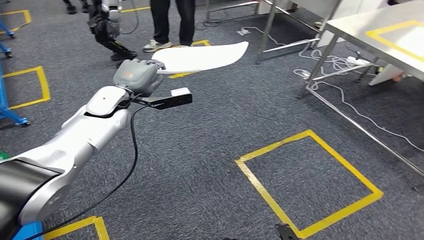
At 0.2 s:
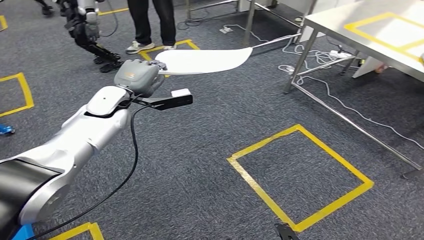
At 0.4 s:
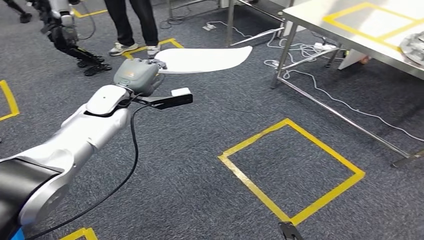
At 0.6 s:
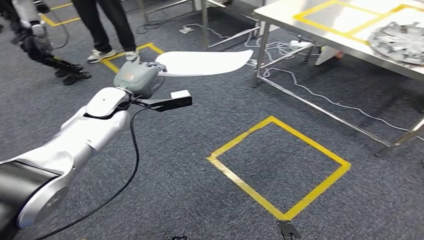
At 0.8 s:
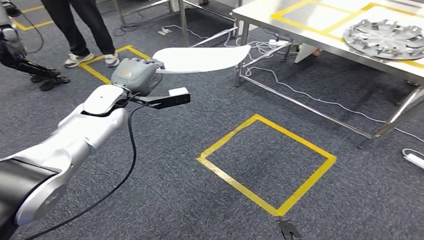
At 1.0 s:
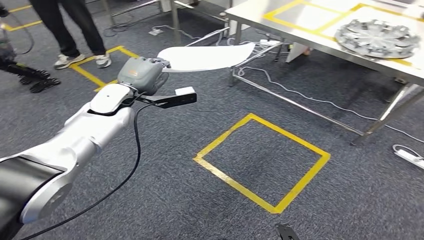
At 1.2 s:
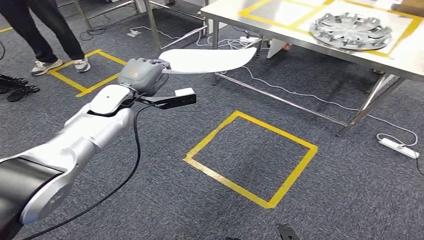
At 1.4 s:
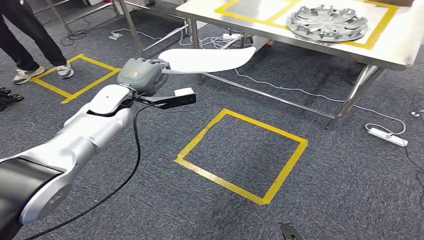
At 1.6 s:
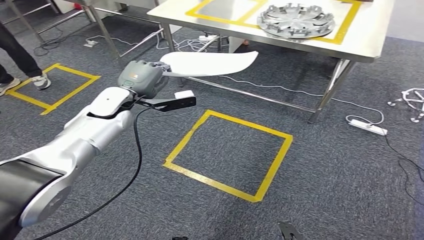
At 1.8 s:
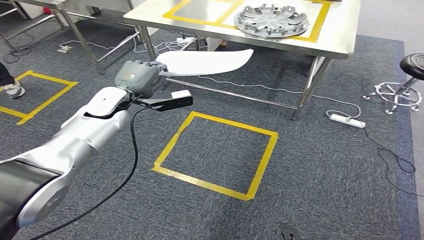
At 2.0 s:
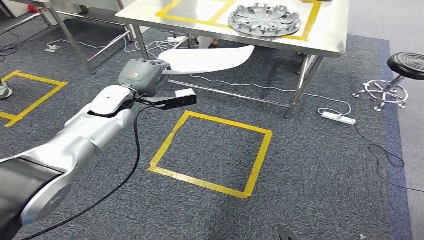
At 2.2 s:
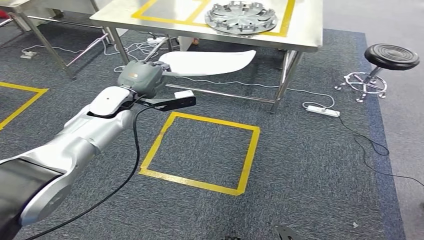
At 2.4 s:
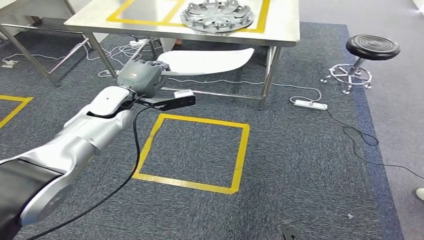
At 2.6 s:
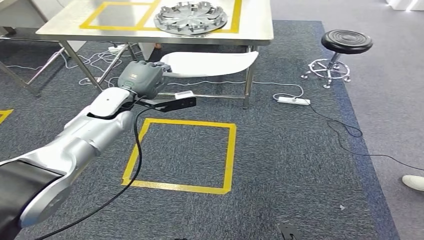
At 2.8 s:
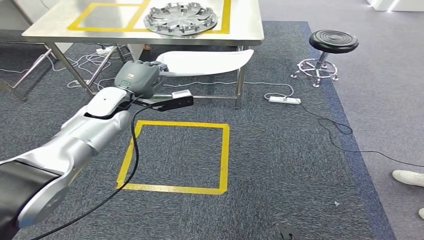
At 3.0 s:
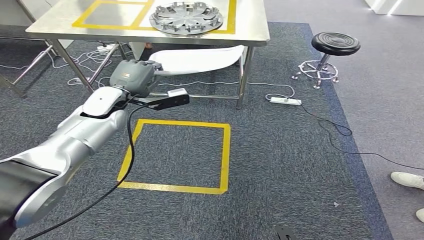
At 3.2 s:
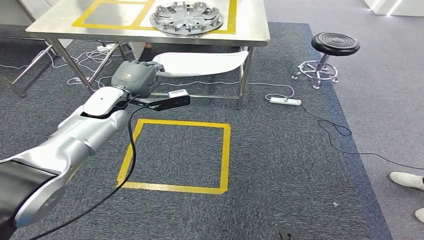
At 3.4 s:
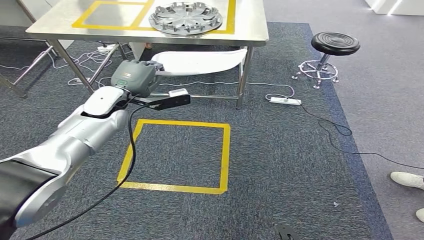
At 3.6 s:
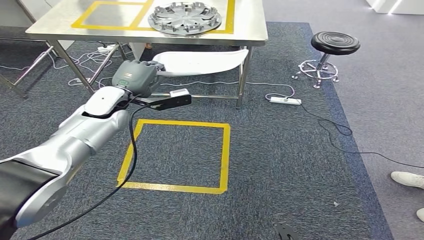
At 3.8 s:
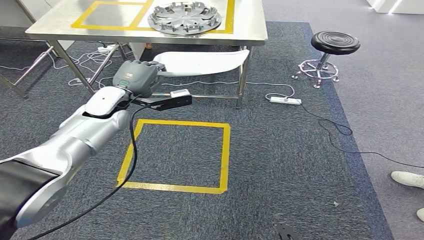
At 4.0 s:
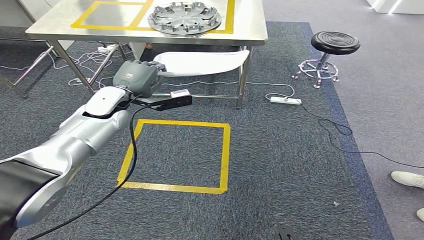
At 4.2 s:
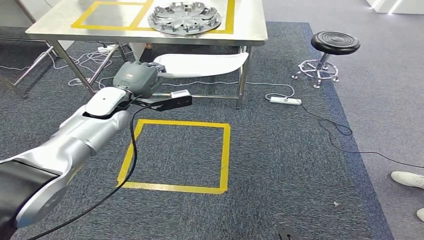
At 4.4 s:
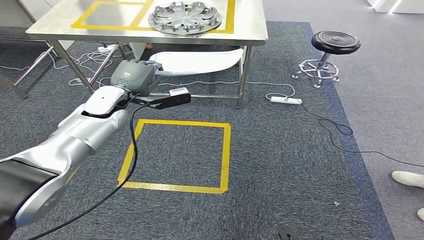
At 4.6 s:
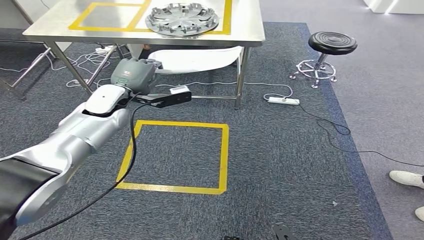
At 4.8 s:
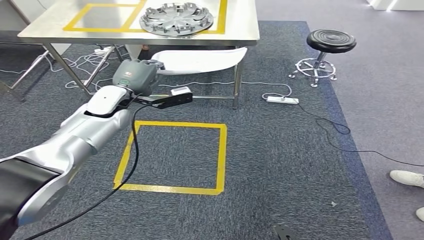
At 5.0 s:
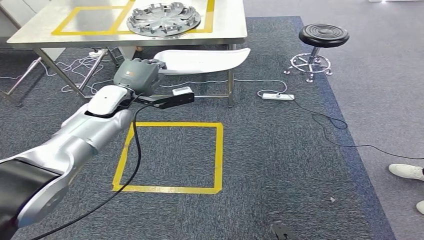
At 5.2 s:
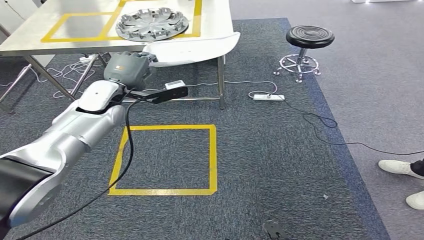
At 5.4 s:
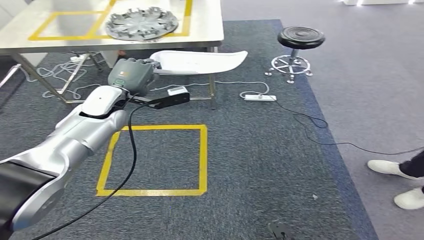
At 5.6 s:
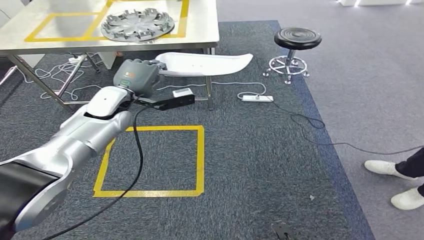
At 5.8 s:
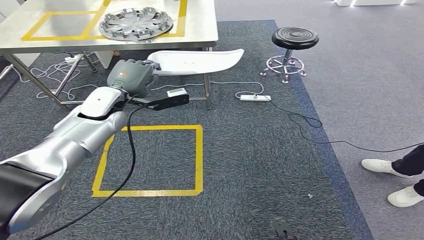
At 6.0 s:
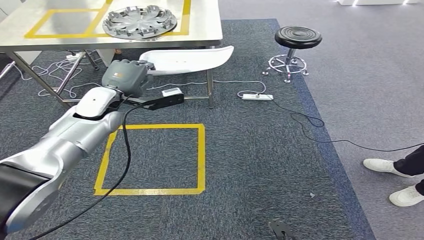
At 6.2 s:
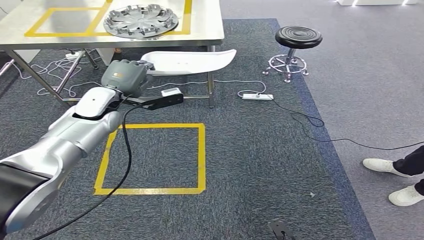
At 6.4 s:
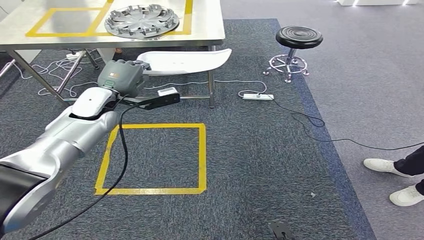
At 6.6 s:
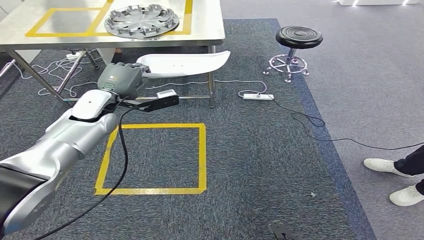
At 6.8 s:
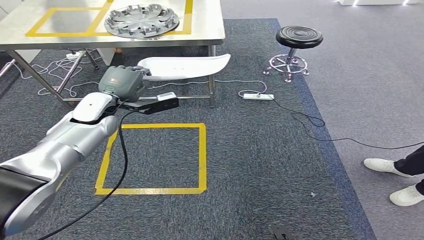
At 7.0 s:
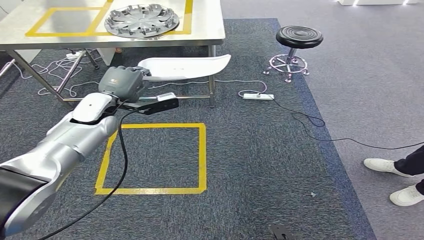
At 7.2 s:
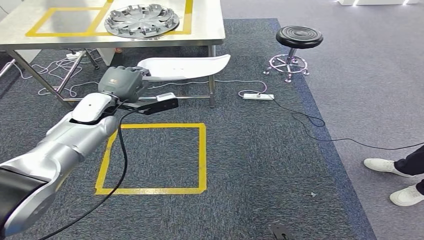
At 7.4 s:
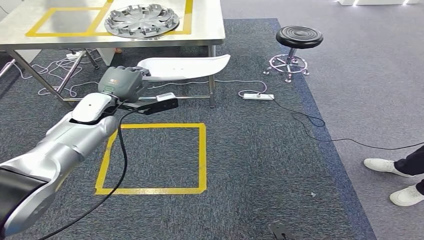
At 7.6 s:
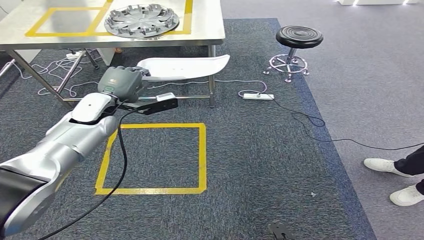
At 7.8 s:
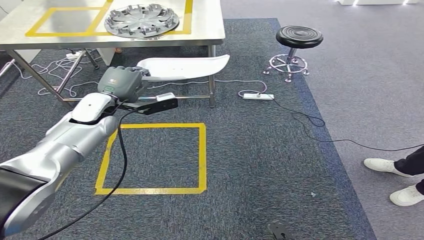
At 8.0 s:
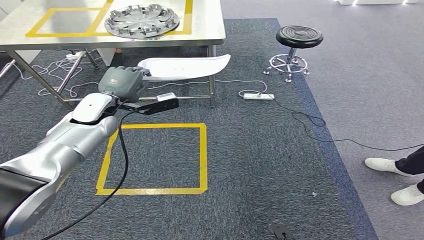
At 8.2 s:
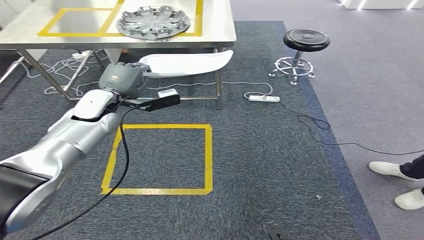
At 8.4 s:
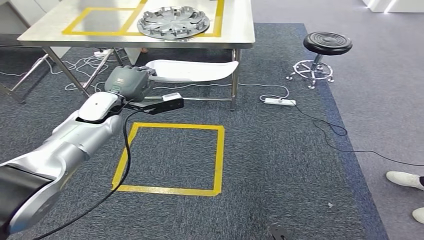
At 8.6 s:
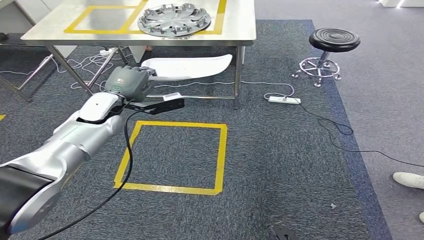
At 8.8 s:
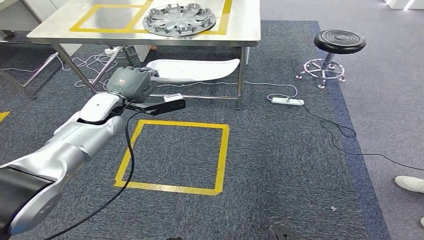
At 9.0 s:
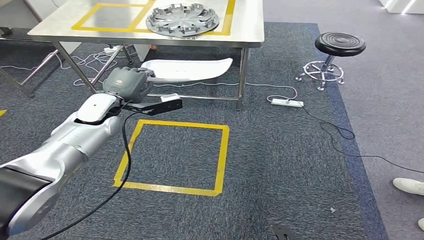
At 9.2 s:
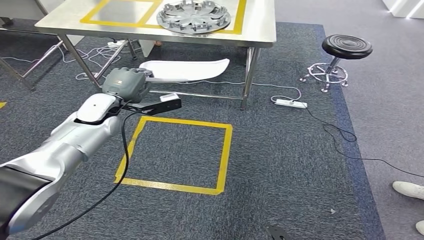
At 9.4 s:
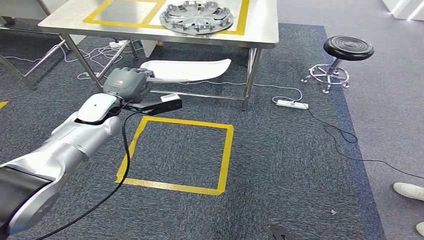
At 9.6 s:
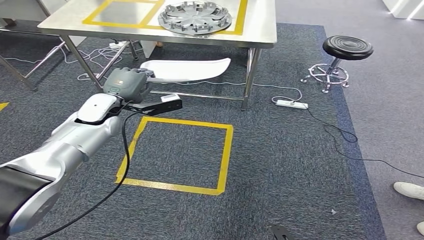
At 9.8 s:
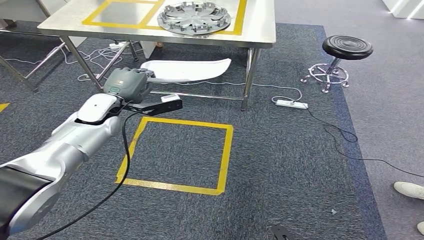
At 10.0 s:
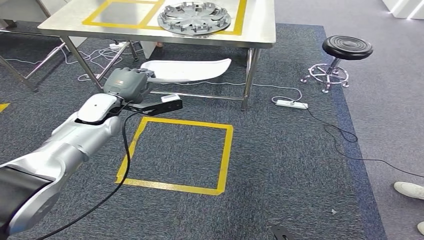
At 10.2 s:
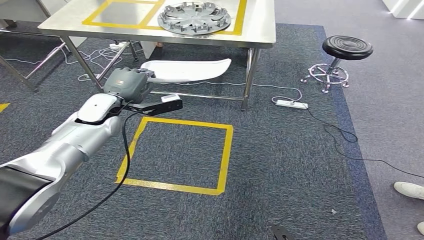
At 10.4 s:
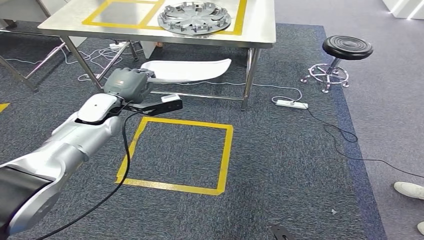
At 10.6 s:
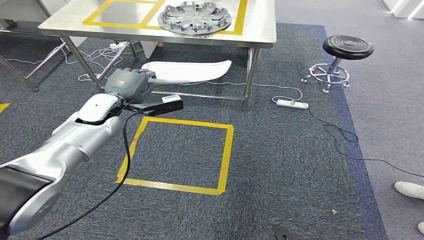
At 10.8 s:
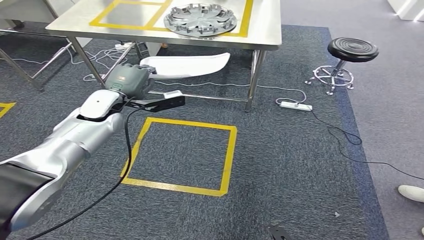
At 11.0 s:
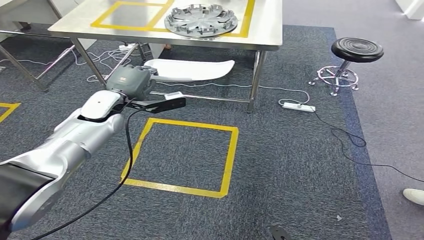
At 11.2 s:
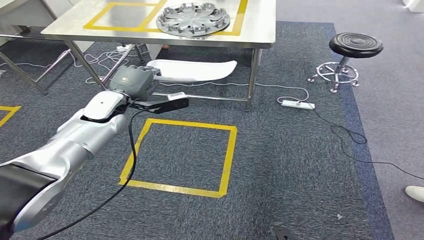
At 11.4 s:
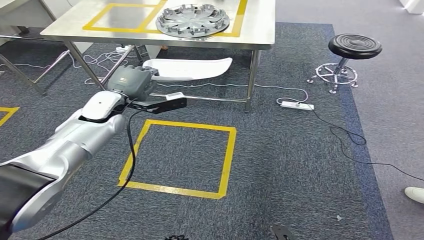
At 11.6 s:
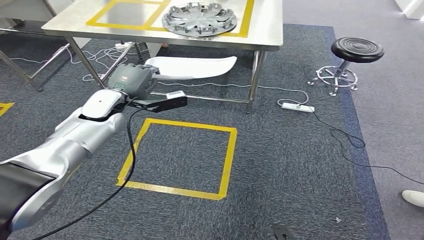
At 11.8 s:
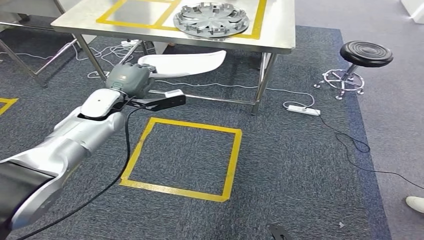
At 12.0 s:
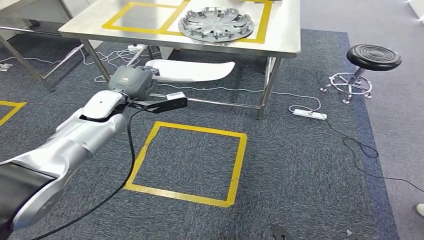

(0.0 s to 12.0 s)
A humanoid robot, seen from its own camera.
3.0 s - 4.4 s: The two hands keep their place.
6.0 s - 7.6 s: The hands make only small movements.
9.0 s - 10.4 s: Neither hand changes place.

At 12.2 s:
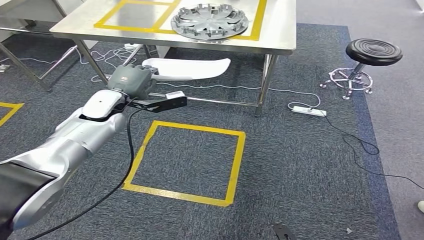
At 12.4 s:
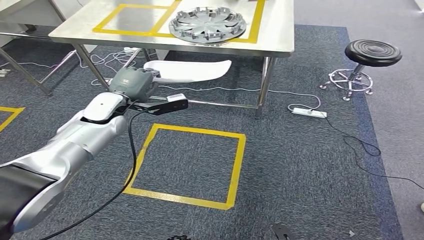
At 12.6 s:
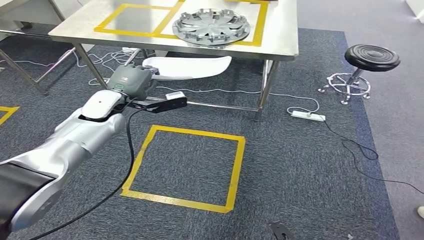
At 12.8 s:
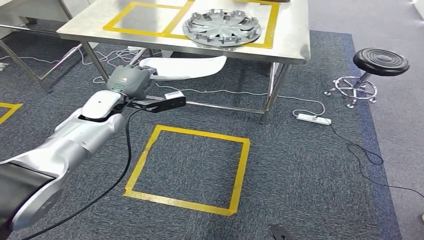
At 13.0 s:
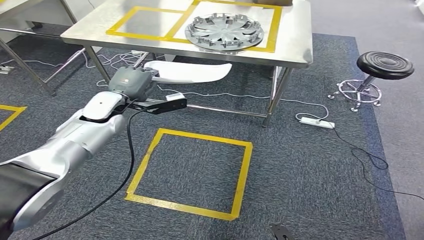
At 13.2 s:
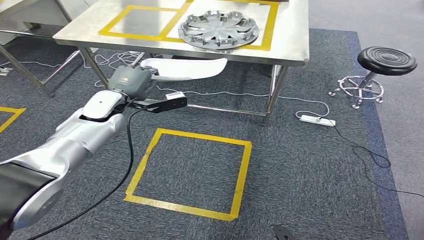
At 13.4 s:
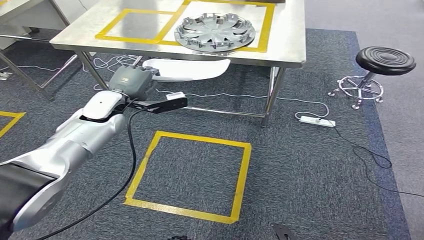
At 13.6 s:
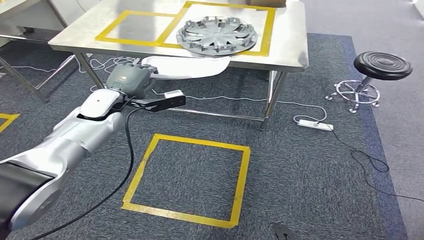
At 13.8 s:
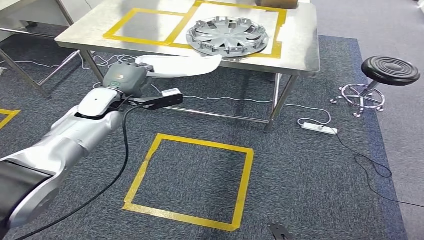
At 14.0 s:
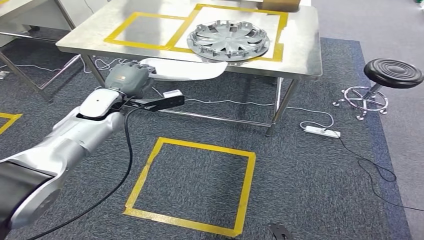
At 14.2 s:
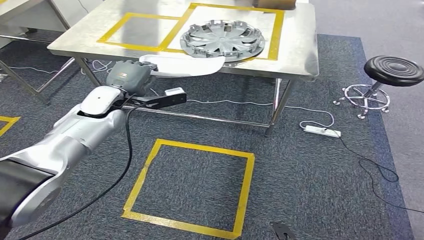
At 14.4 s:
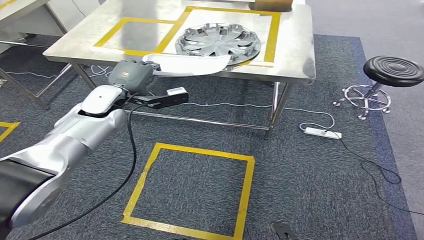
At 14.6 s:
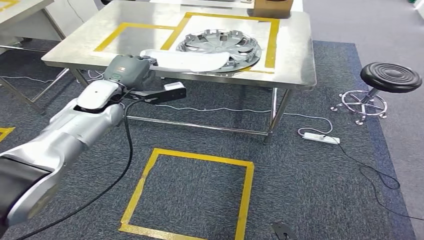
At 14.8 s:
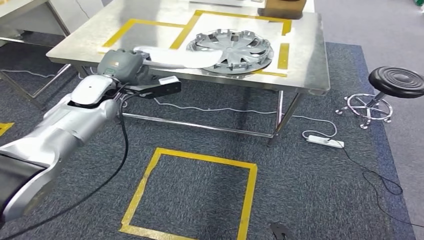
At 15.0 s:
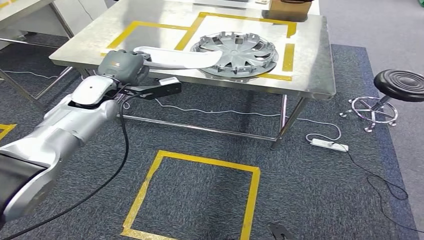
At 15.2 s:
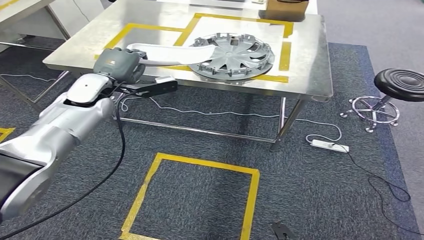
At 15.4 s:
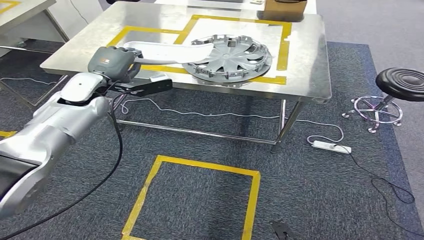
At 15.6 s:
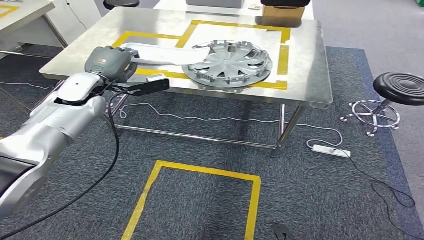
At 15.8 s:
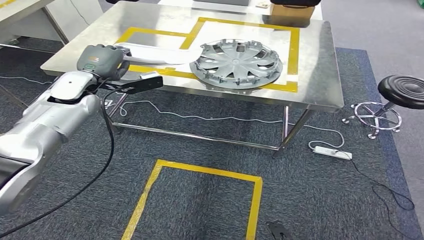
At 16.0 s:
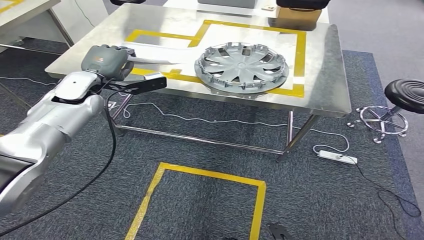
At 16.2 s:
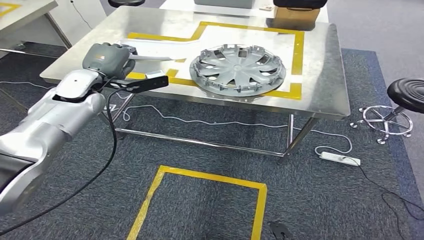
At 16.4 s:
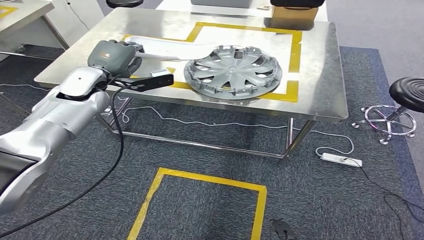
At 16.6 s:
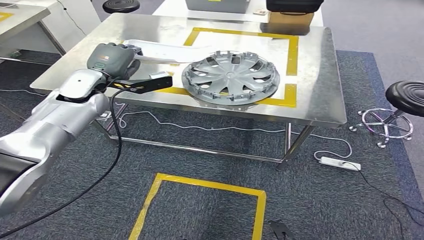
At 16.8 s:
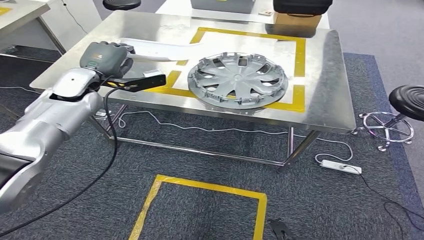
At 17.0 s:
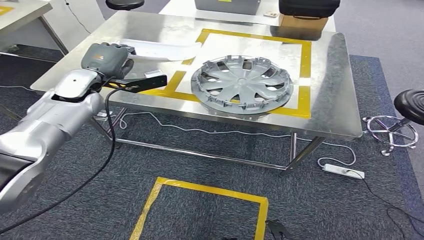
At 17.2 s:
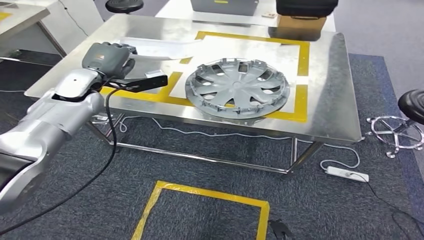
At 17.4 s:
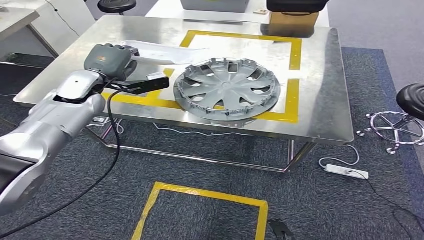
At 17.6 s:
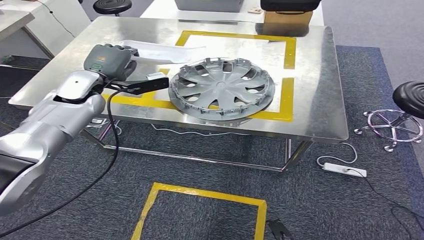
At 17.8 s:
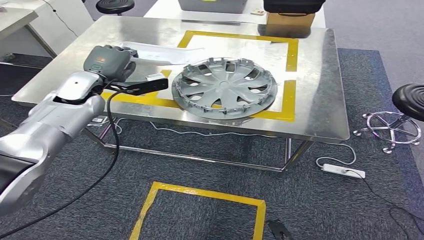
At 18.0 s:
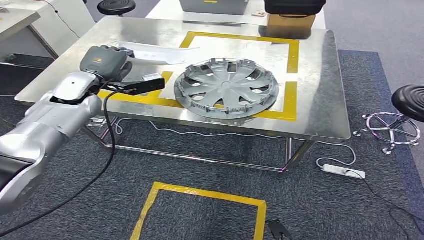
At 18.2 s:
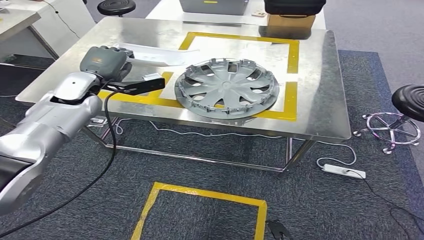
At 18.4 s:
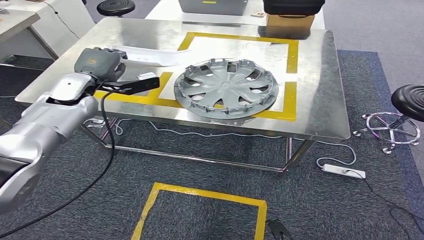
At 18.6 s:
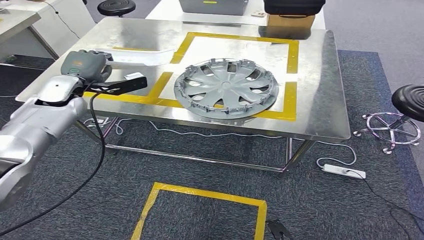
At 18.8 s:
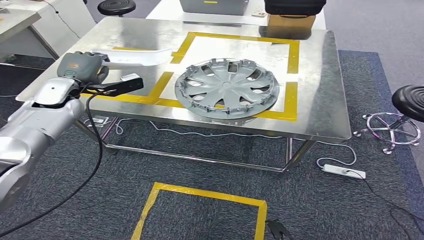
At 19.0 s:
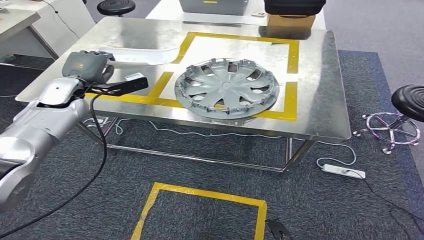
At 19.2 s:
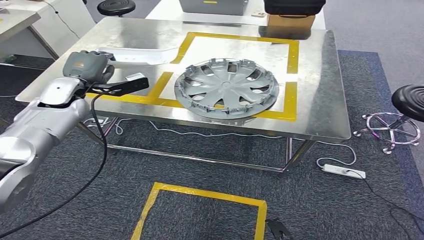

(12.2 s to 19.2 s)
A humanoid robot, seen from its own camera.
Step, 12.2 s - 16.0 s: Move the small parts to the workbench.
17.8 s - 19.2 s: The hands make only small movements.
